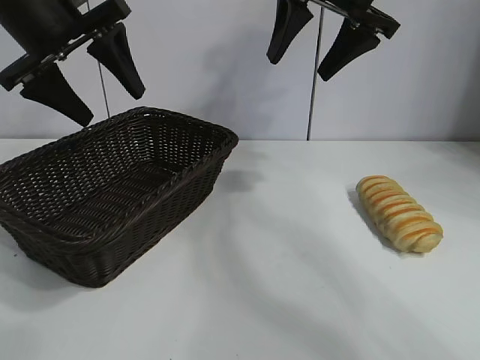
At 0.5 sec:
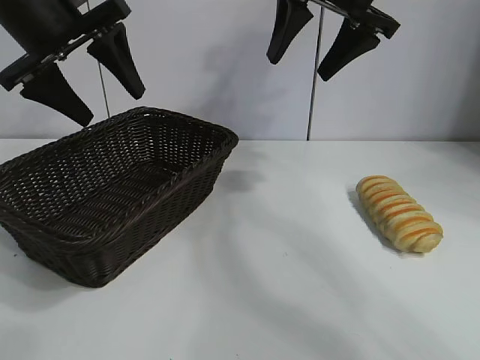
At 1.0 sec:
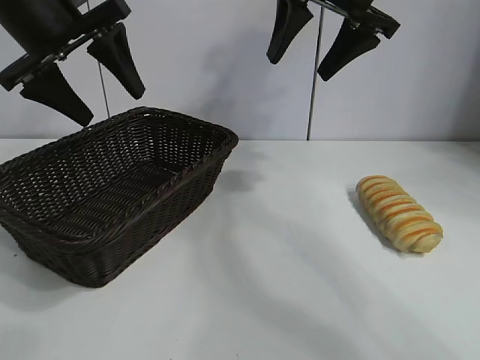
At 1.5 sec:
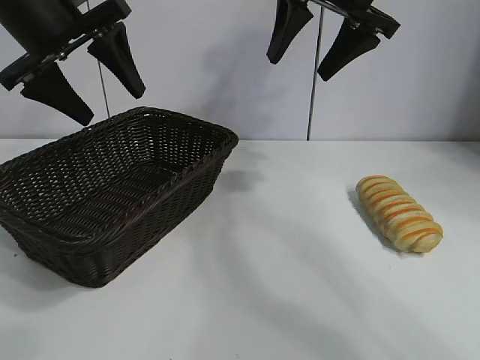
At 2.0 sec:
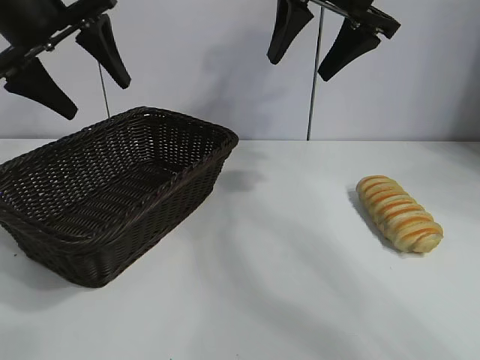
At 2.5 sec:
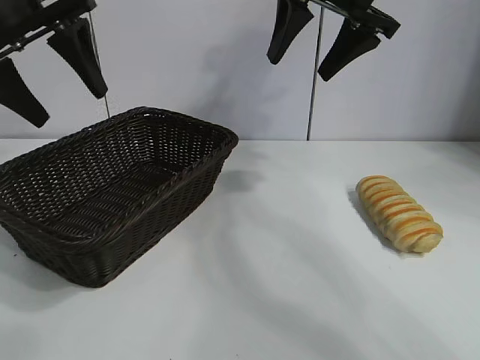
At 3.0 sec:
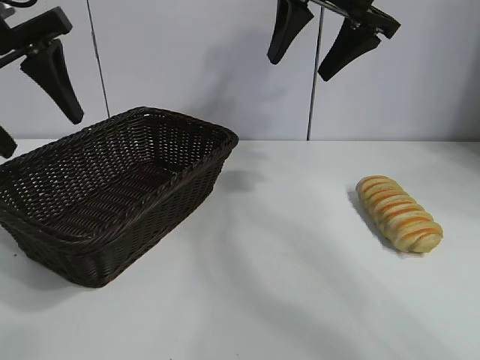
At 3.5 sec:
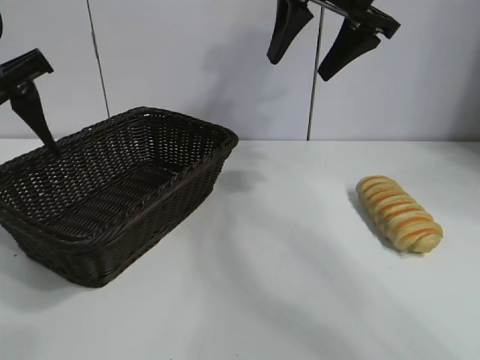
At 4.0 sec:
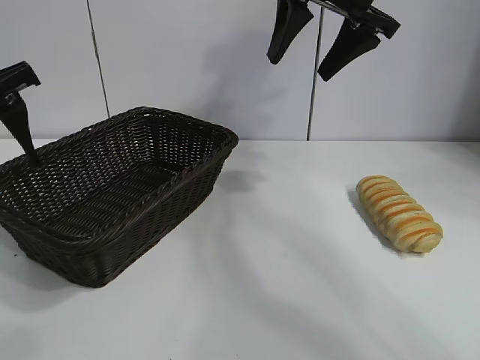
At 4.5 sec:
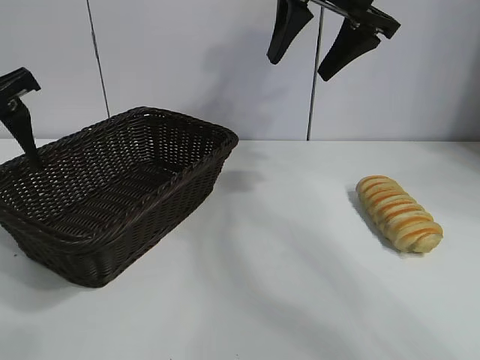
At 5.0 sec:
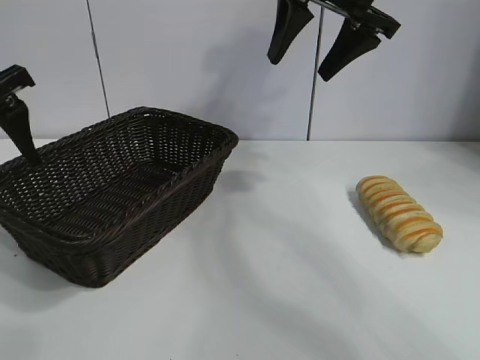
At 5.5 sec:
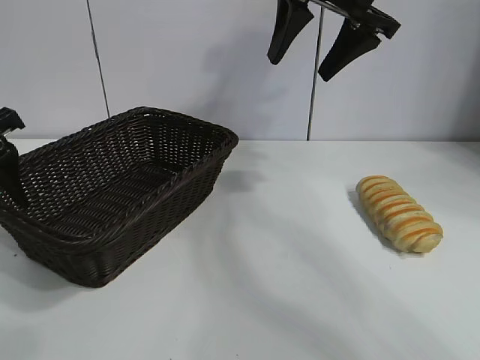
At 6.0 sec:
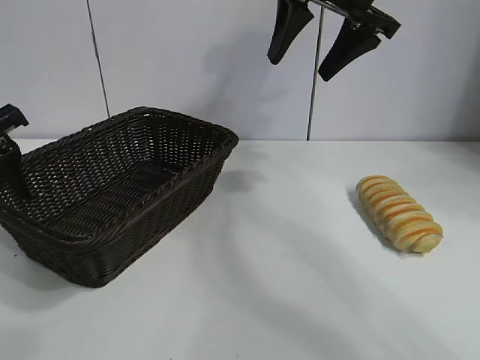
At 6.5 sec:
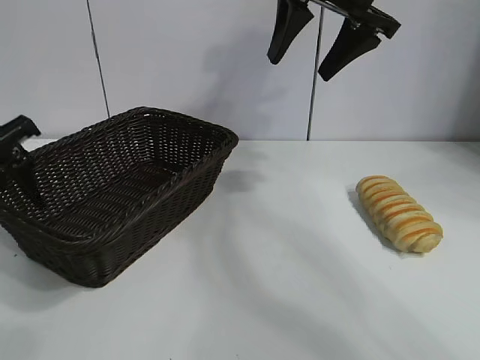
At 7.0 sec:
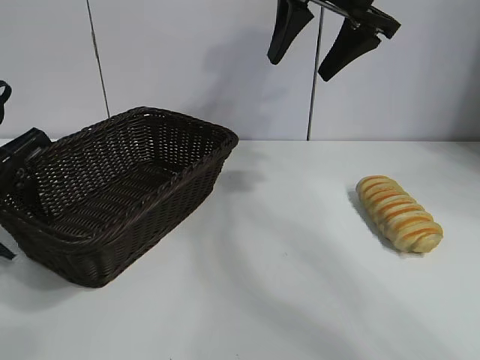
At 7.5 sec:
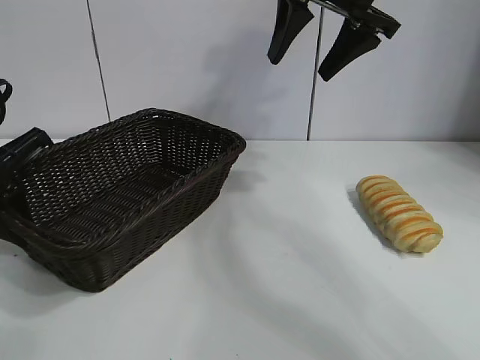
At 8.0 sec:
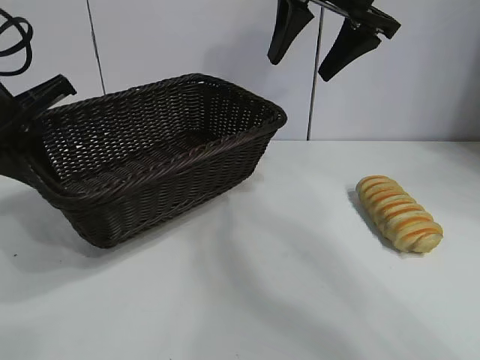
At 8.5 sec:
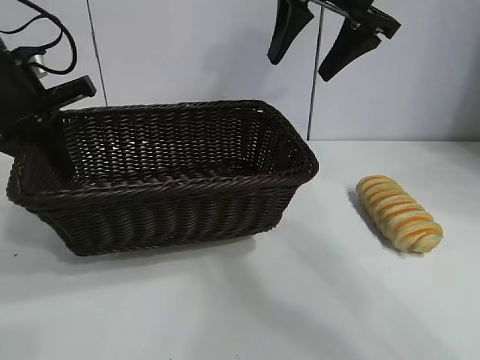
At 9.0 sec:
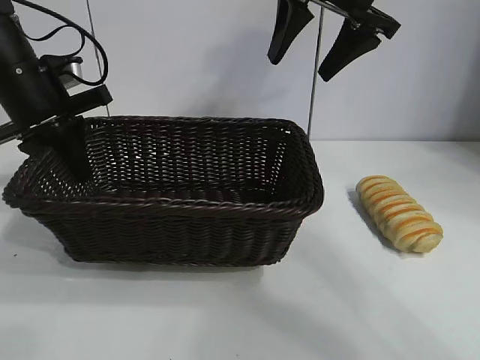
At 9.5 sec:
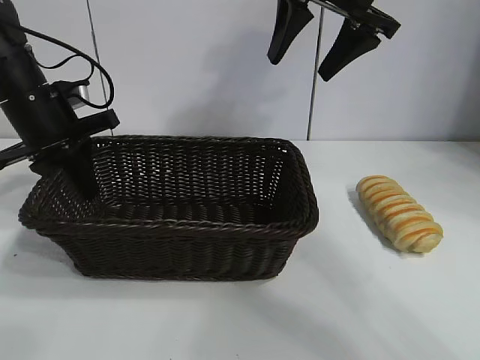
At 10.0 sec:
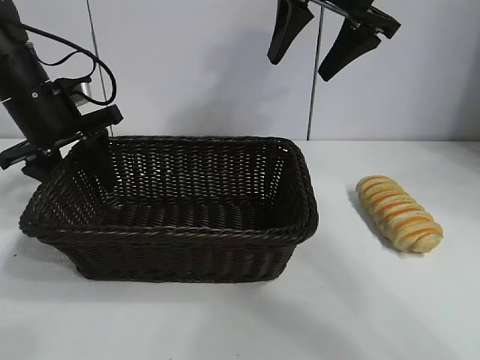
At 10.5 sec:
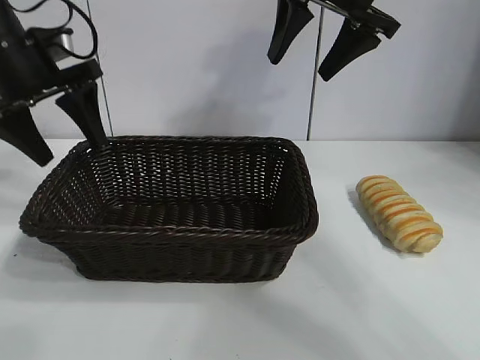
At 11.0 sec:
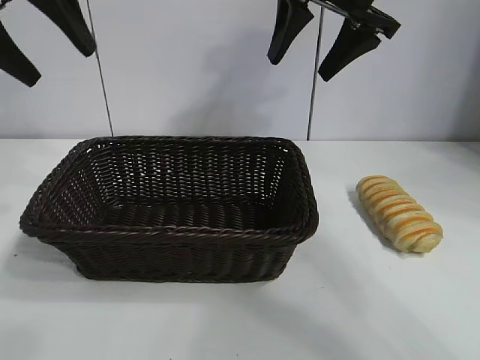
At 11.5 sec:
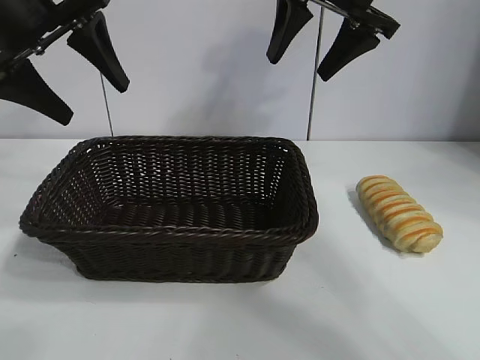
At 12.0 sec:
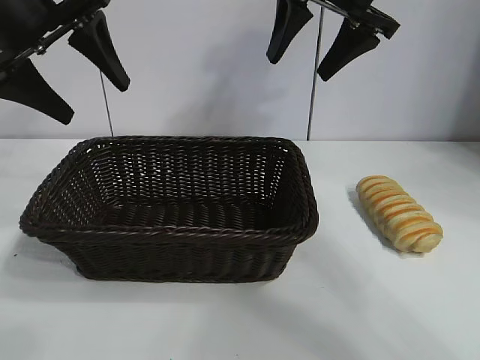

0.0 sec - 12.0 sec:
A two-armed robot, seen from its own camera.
Task of the whole recording: pick up the long bread and put it into the basket.
Step, 2.0 sec - 7.5 sec: Grasp the basket with the left gripper.
Step, 8.0 sec - 10.0 sec: Place the basket in the center of the table with the left gripper.

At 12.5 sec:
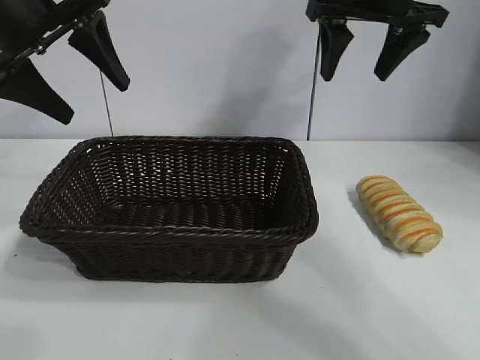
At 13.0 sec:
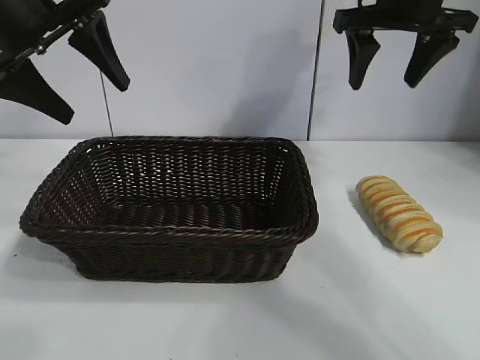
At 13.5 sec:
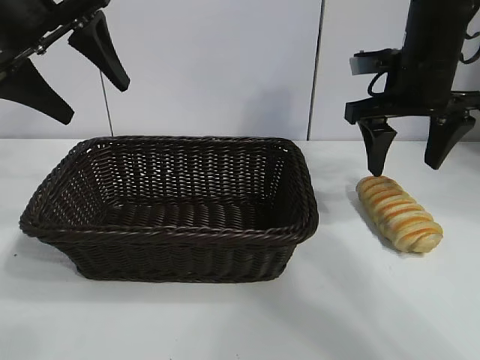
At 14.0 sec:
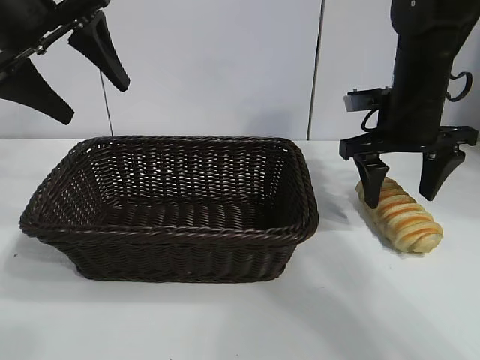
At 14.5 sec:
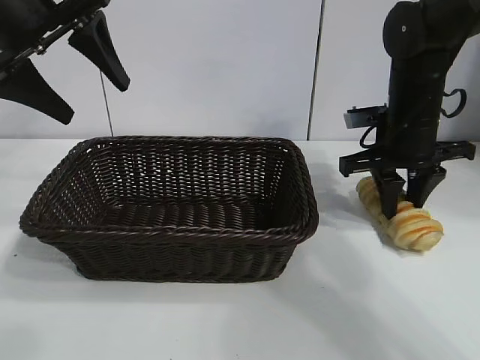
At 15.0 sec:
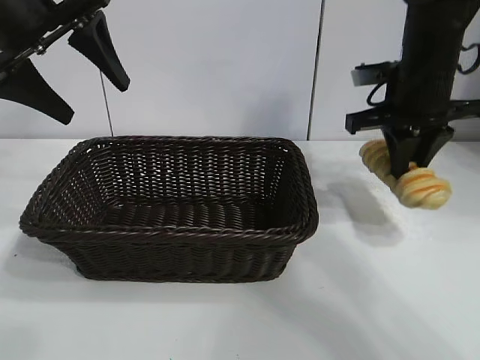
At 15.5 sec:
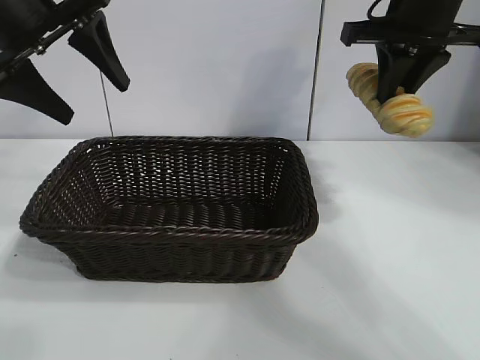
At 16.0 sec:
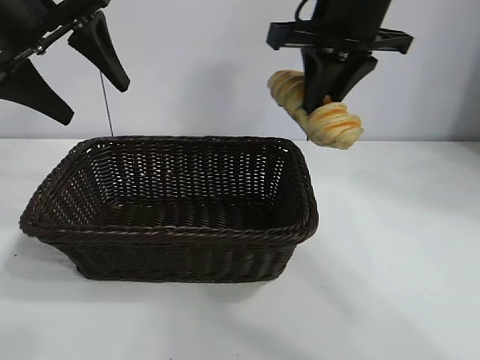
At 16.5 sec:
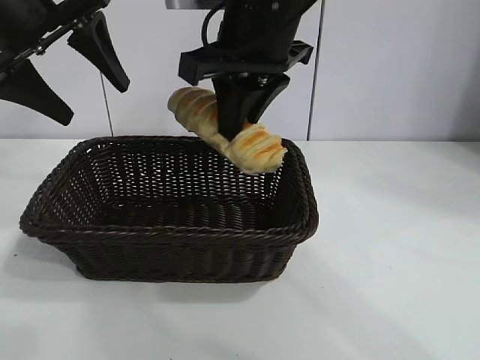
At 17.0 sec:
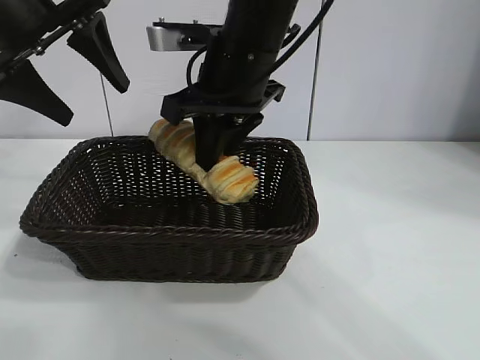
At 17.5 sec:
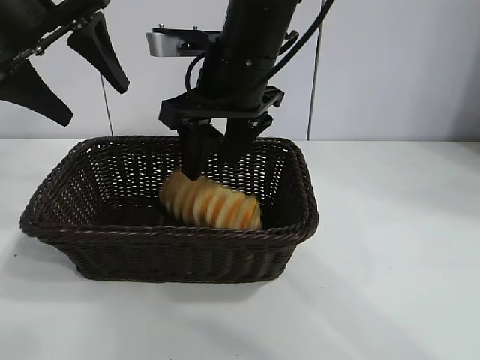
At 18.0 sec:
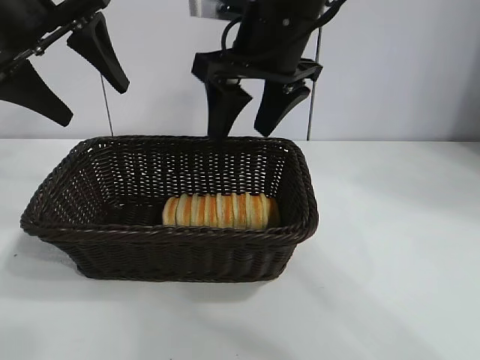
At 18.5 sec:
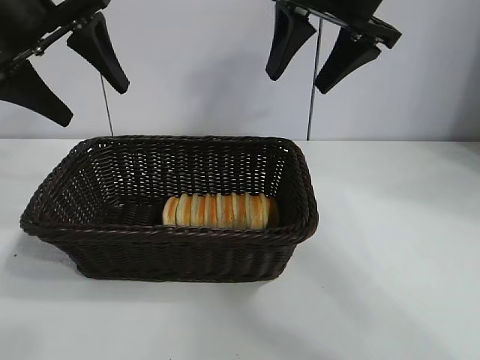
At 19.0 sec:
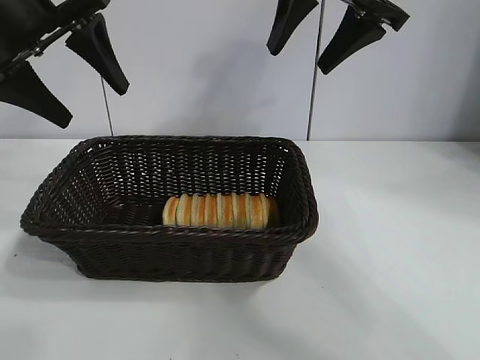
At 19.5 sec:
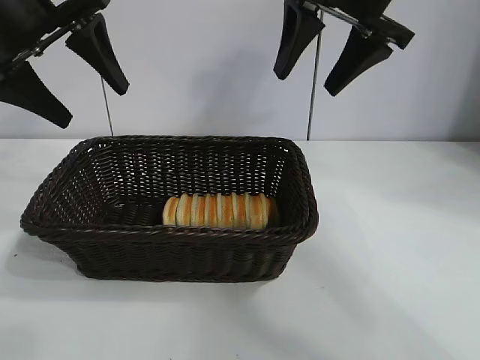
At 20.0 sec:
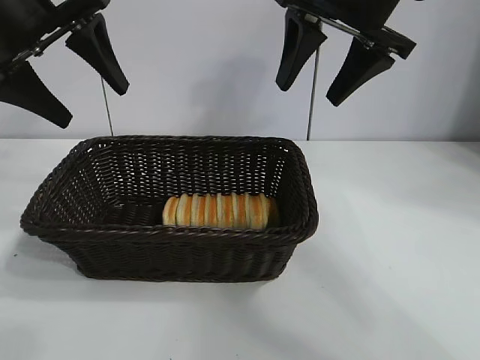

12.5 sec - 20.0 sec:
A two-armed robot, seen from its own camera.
Task of the whole recording: pick up the long bread and put it into the basket.
Step, 12.5 sec - 14.5 sec: Grasp the long bread with right gripper.
Step, 15.0 sec - 17.5 sec: Place the long bread in the basket with right gripper.
